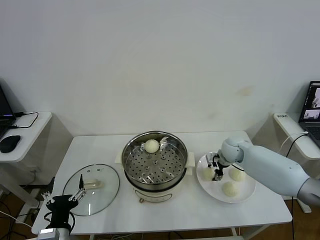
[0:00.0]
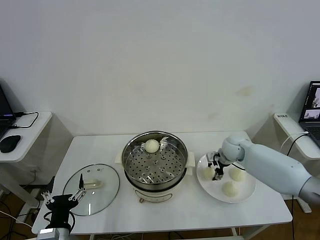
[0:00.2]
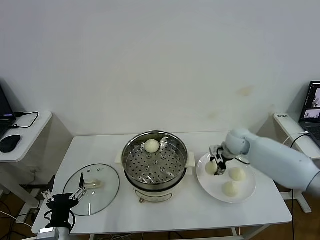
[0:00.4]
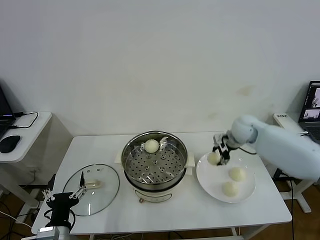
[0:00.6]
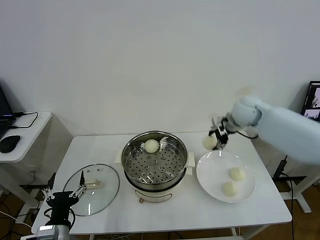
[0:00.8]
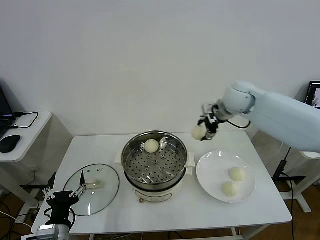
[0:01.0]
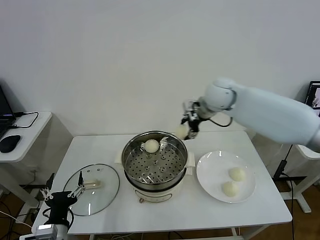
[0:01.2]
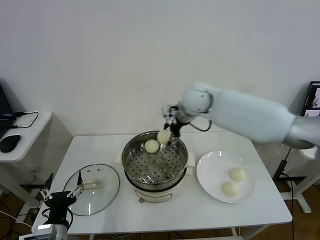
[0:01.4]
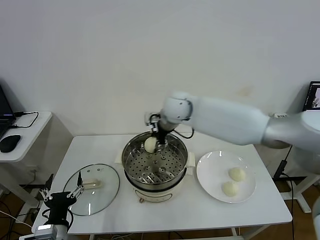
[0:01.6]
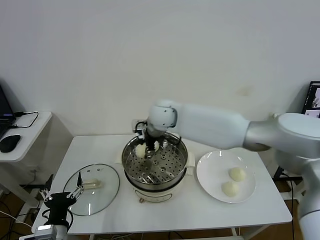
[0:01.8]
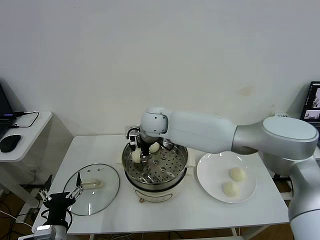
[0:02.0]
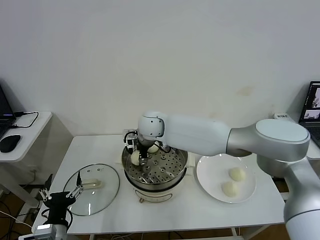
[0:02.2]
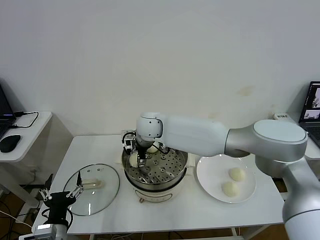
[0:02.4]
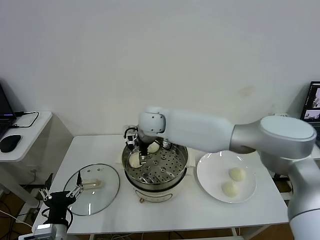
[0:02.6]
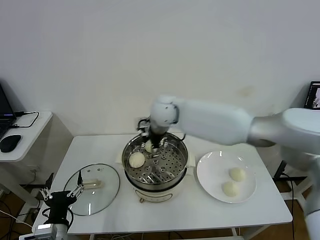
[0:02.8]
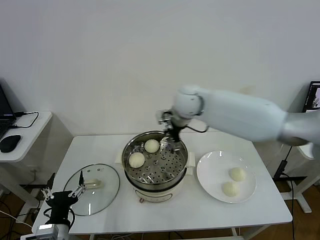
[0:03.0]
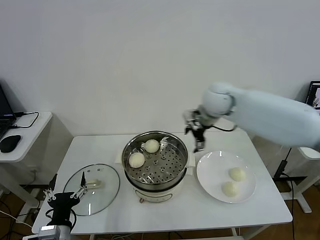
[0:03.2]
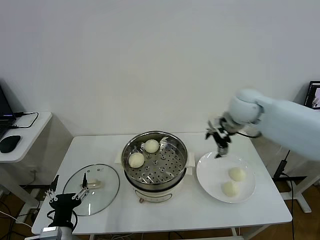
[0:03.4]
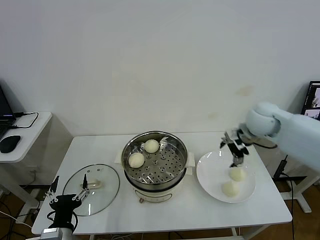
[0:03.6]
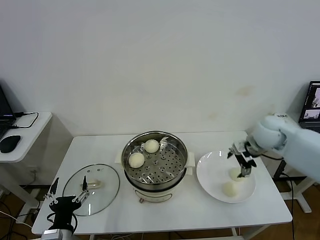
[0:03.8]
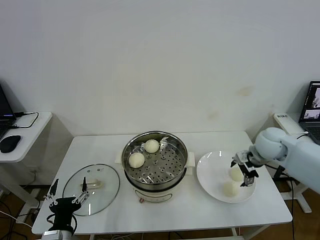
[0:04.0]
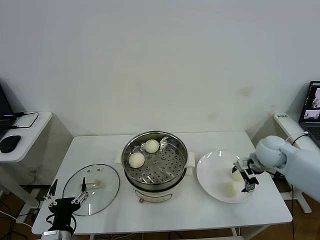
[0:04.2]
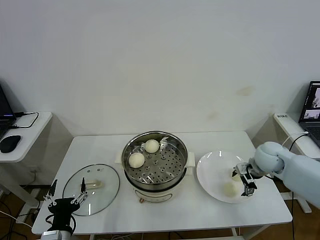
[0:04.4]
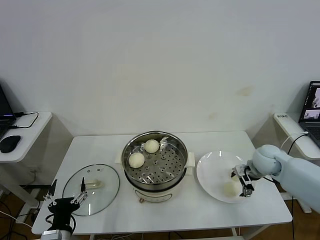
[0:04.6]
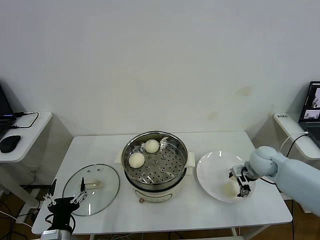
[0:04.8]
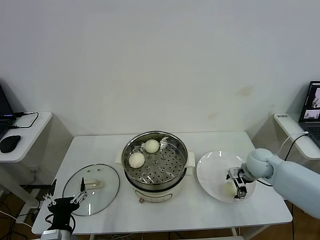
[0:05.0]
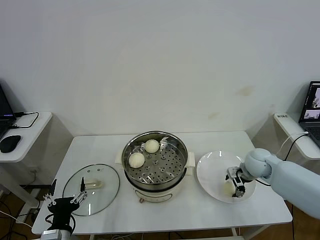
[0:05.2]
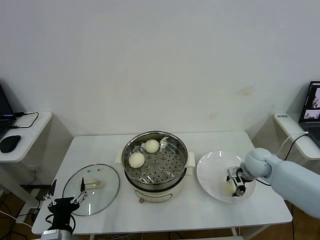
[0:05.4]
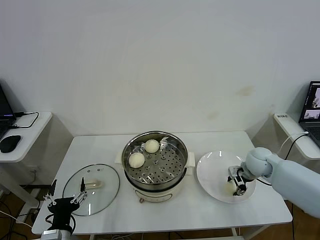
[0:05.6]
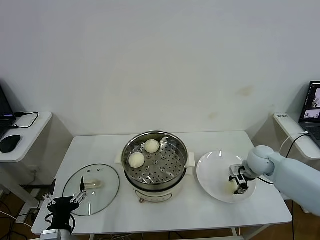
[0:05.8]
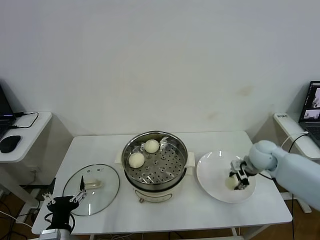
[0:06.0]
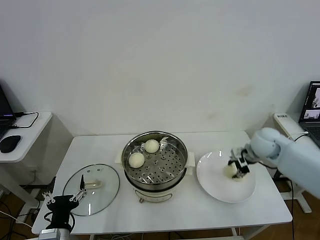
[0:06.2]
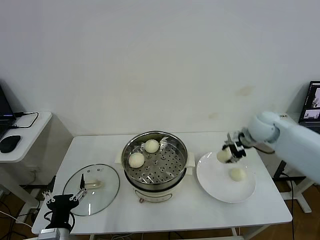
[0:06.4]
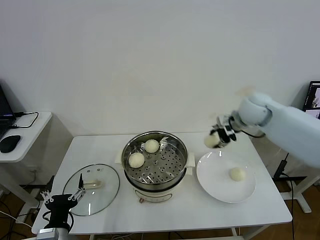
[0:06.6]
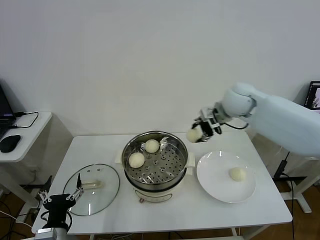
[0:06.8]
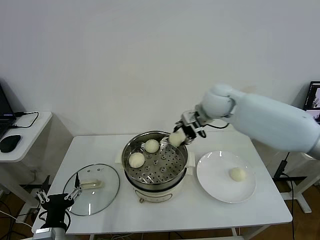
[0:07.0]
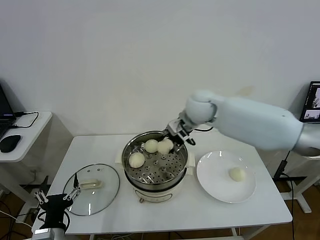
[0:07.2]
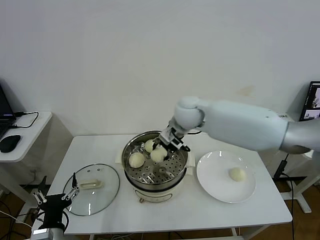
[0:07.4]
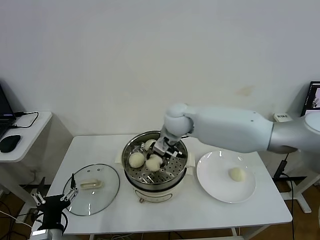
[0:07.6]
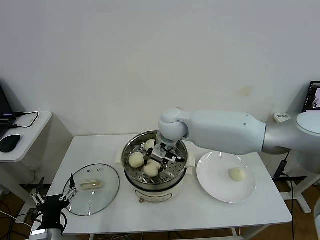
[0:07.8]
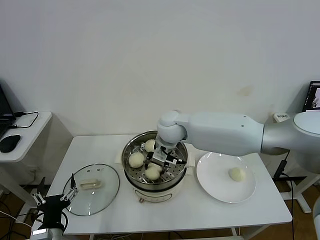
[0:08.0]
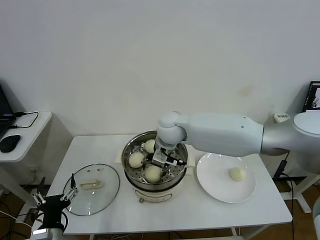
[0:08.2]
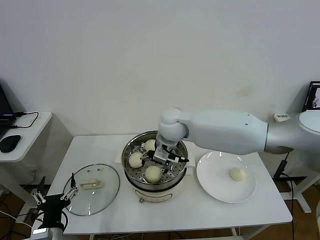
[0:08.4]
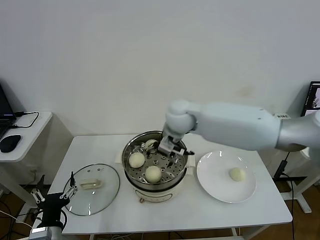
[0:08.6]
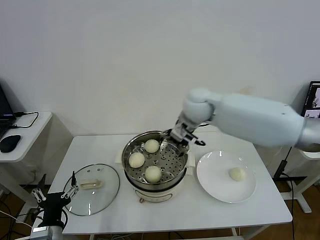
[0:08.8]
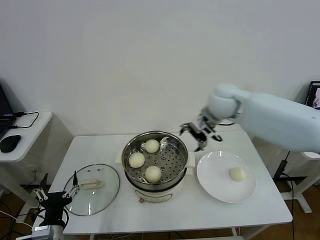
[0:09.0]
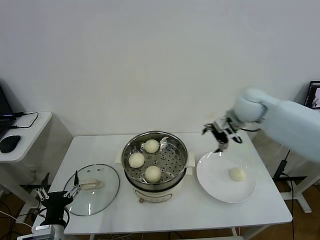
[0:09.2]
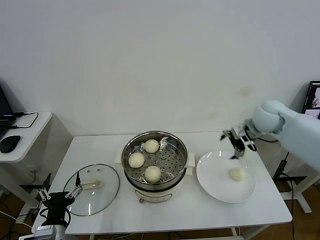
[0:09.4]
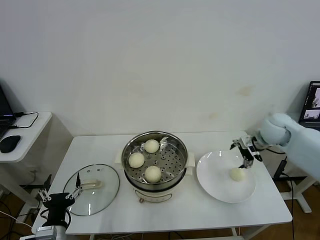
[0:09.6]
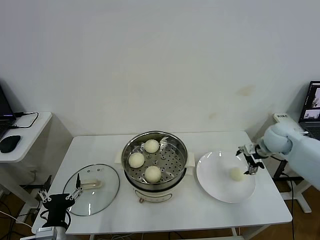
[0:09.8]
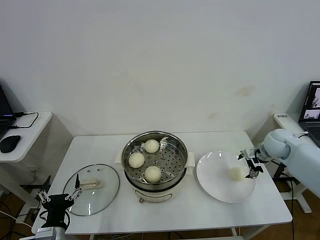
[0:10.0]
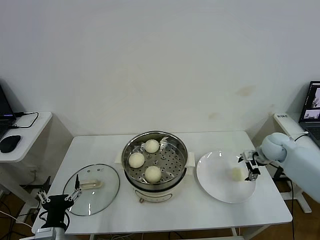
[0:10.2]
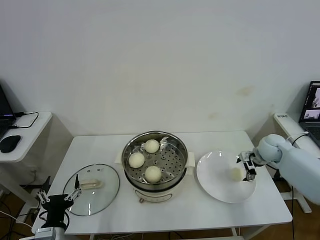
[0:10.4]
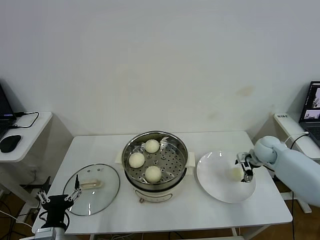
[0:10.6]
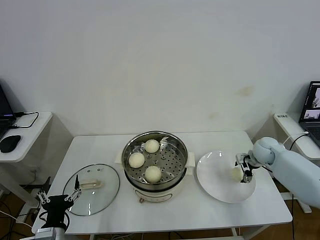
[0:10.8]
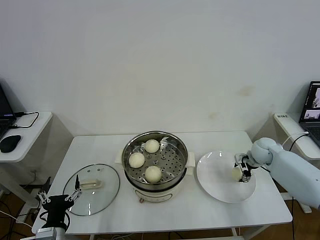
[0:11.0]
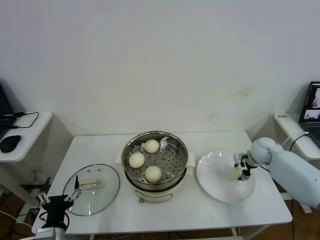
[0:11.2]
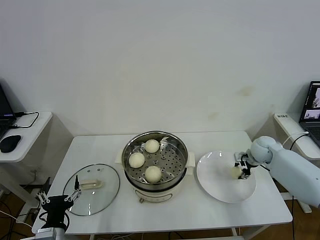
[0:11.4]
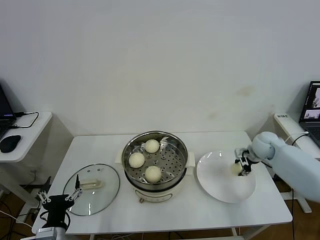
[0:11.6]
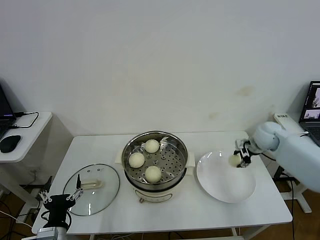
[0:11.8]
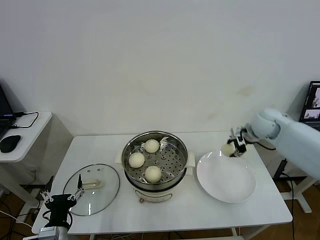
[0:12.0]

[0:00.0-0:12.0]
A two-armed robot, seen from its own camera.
Step, 0:00.2 to 0:02.4: Place the baozi on the steamer with right gripper.
Step, 0:02.6 to 0:05.8: Grasp the baozi in the plate with right gripper.
Step, 0:06.0 to 0:08.2: Place the baozi on the steamer with right gripper.
Step, 0:08.4 to 0:11.2: Grasp the baozi in the plate with right gripper.
0:00.0 to 0:01.6: The right gripper shifts about 30 cm to the left and upward.
0:01.6 to 0:03.0: The right gripper is displaced to the right by approximately 10 cm, and opens its fingers.
0:03.0 to 0:04.4: The right gripper goes about 30 cm to the right and downward.
0:04.4 to 0:06.0: The right gripper closes its fingers.
0:06.0 to 0:07.6: The right gripper goes approximately 30 cm to the left.
0:07.6 to 0:09.0: The right gripper is displaced to the right and upward by some 15 cm, and opens its fingers.
0:09.0 to 0:10.4: The right gripper is displaced to the right and downward by about 30 cm.
0:10.4 to 0:12.0: The right gripper travels upward and to the left by some 10 cm, and closes its fingers.

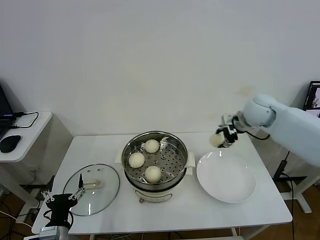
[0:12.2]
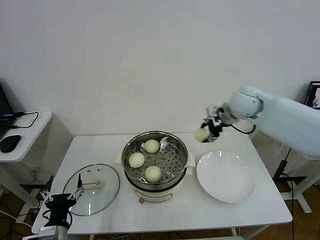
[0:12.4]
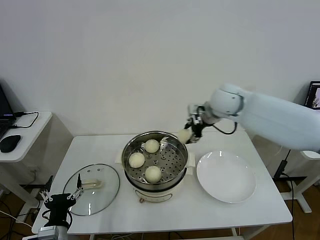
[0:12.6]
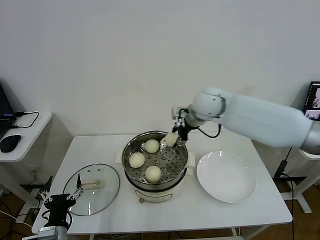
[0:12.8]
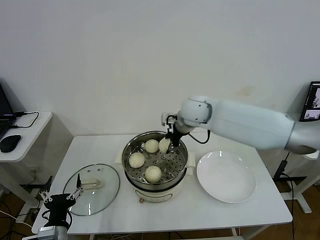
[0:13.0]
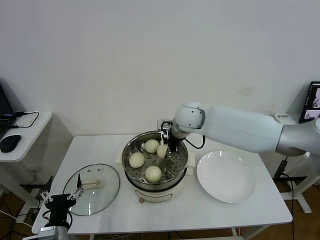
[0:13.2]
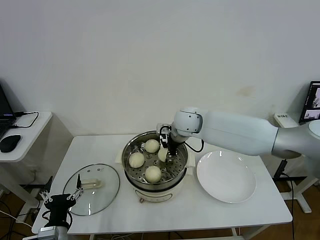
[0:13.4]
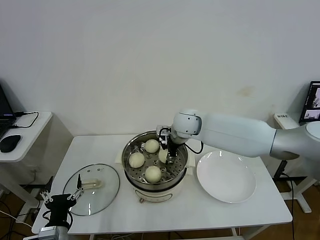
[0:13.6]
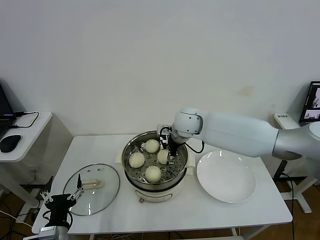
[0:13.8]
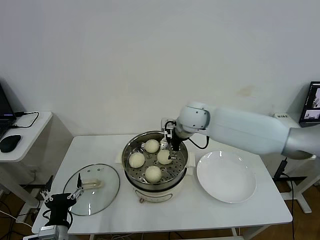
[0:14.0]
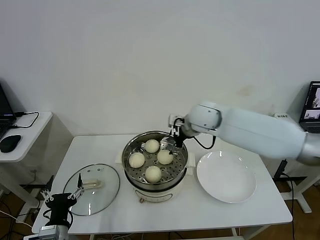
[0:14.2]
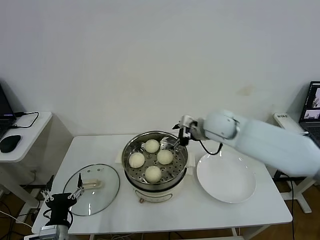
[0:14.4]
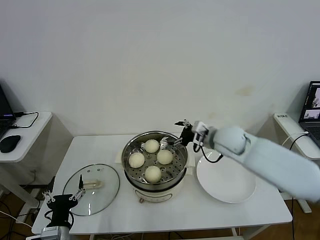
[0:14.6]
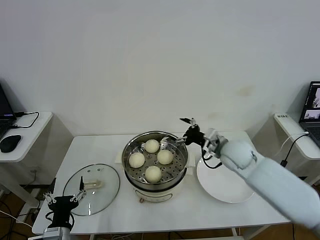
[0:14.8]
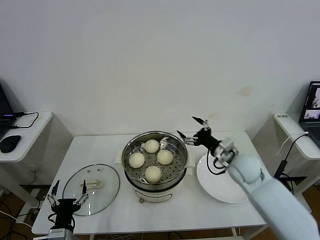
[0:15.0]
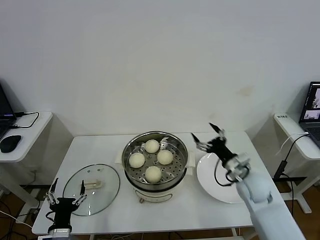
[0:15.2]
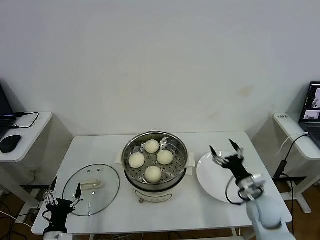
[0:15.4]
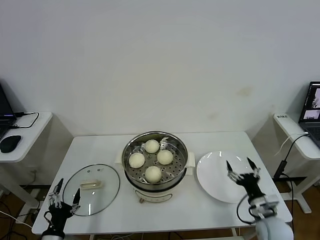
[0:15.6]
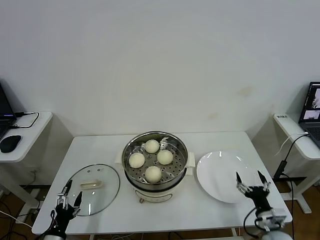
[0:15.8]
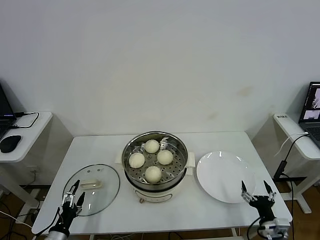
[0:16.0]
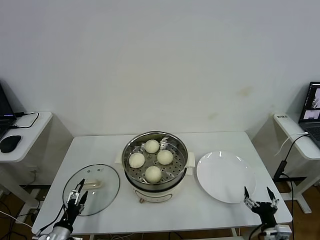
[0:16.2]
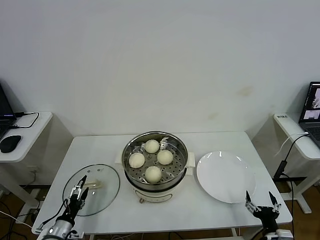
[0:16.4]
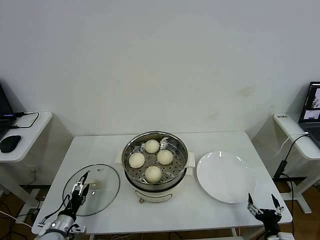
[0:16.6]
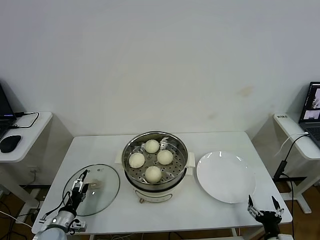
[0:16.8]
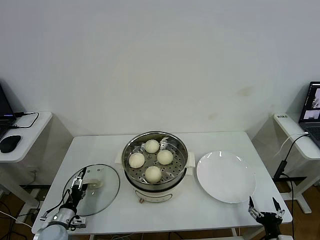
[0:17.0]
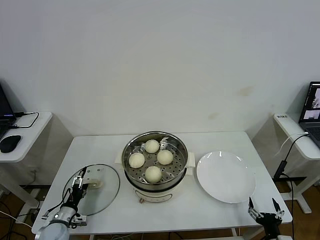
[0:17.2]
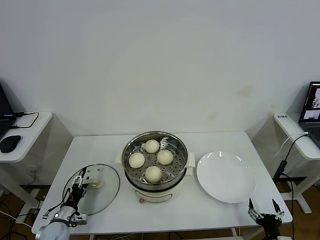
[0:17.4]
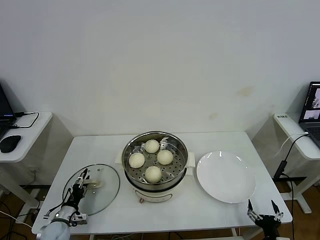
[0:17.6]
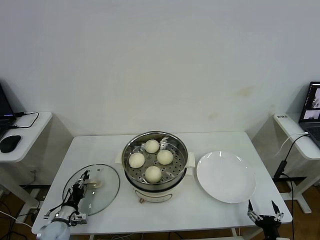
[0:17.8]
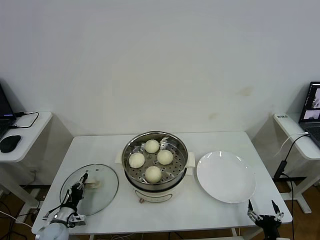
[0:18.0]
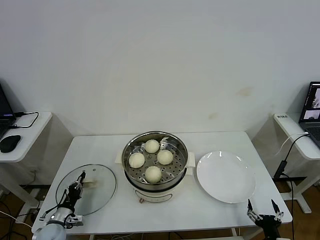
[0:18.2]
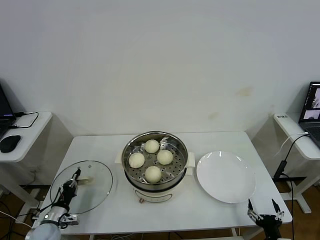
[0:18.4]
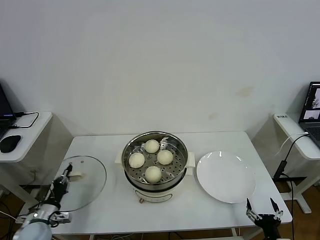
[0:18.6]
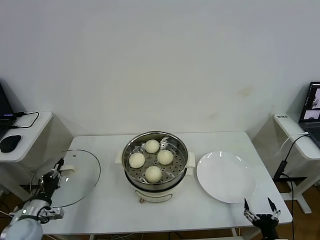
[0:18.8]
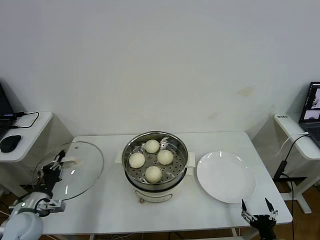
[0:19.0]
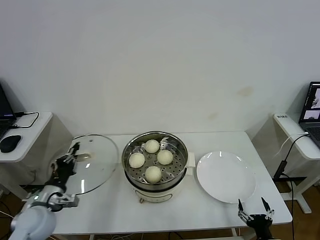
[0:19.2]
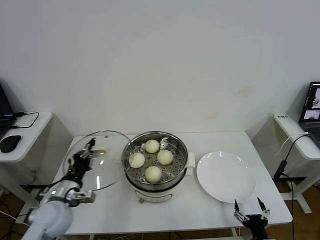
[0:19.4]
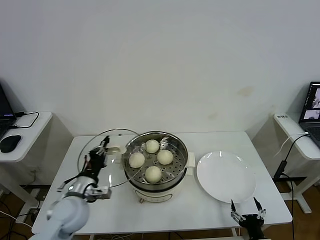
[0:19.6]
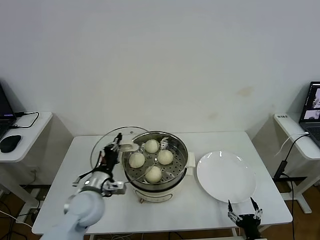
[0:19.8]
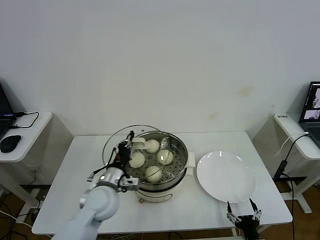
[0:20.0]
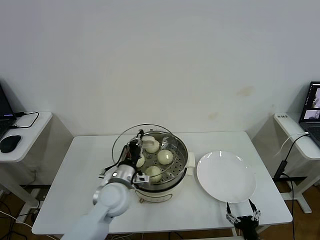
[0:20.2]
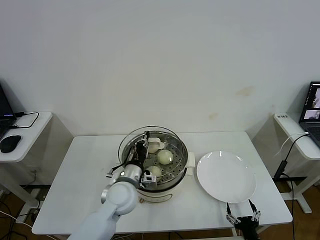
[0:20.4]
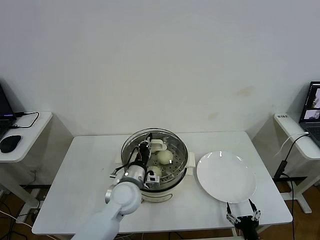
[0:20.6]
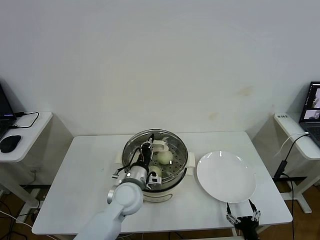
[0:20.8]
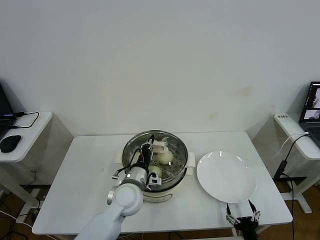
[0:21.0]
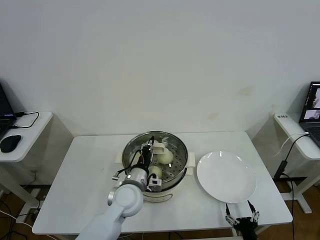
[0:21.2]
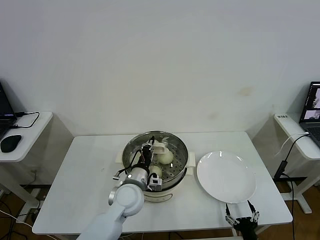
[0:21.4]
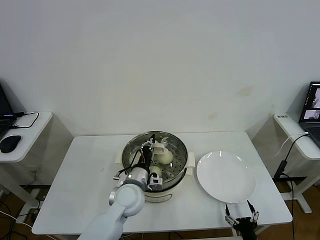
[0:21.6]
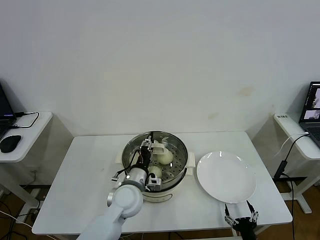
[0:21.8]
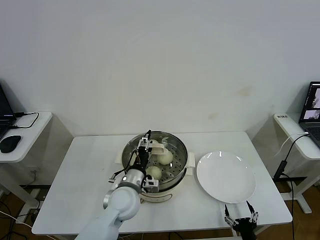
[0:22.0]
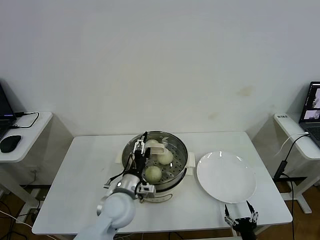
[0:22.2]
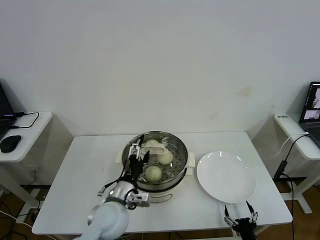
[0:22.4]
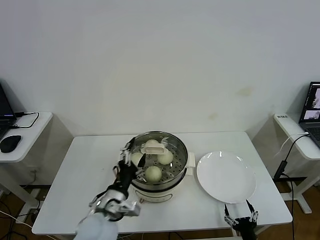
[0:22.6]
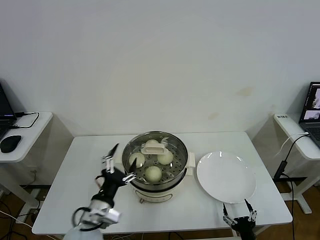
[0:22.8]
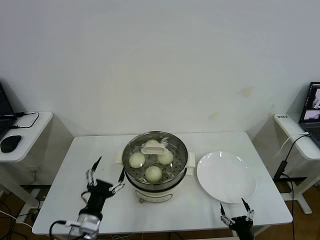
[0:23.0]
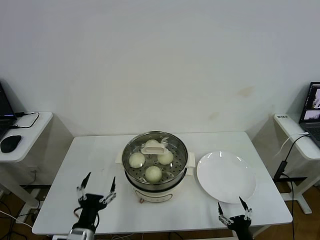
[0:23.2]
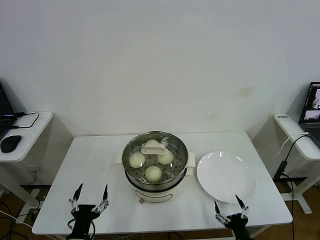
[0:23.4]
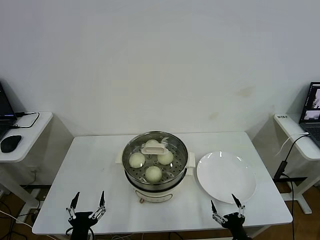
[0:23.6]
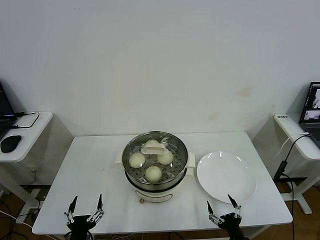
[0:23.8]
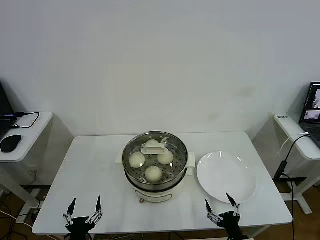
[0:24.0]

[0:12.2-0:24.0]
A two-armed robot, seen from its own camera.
Step, 0:12.2 to 0:13.8: Place the baozi on the steamer with right gripper.
Step, 0:14.0 to 0:18.2: Grasp the pot lid with left gripper.
Step, 0:18.4 to 0:21.6: Place the pot lid on the steamer with left gripper.
0:12.2 to 0:13.6: The right gripper moves to the left, roughly 25 cm.
0:13.6 to 0:15.2: The right gripper is displaced to the right, backward and downward by about 30 cm, and opens up.
0:15.2 to 0:16.6: The left gripper moves to the left, downward and forward, roughly 15 cm, while the right gripper shifts about 25 cm backward and downward.
0:16.6 to 0:18.2: The left gripper shifts by approximately 5 cm, and closes.
0:18.2 to 0:19.6: The left gripper heads upward and to the right, covering about 25 cm.
0:19.6 to 0:21.0: The left gripper heads to the right, covering roughly 15 cm.
0:21.0 to 0:22.6: The left gripper goes about 10 cm backward, and opens its fingers.
0:22.6 to 0:24.0: The left gripper travels backward, downward and to the left by about 20 cm.
